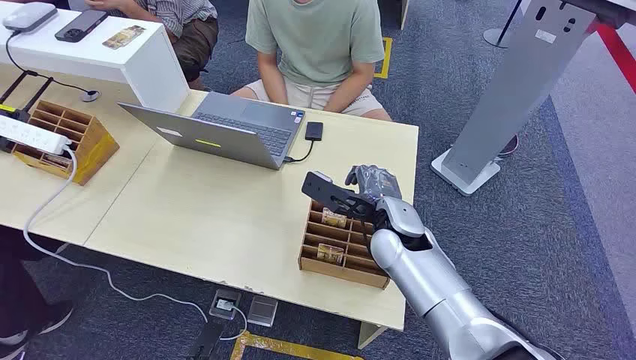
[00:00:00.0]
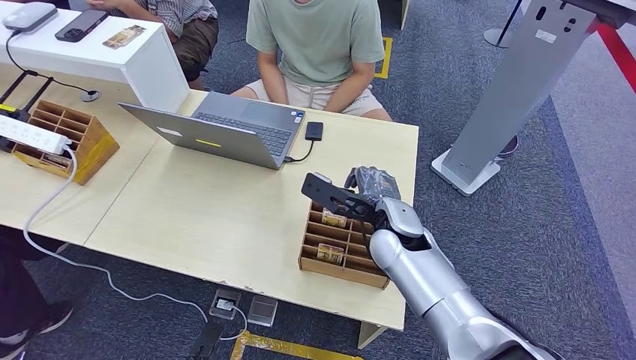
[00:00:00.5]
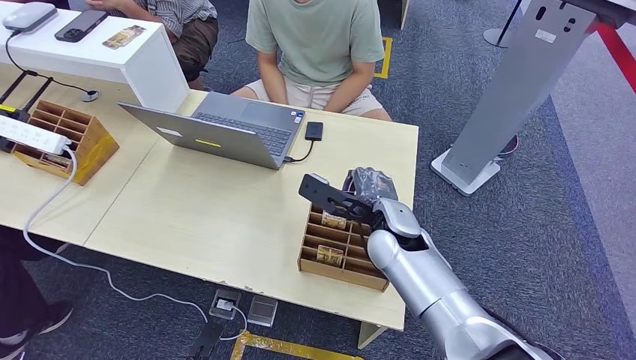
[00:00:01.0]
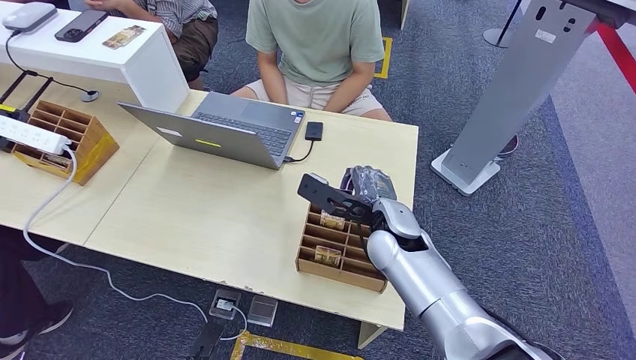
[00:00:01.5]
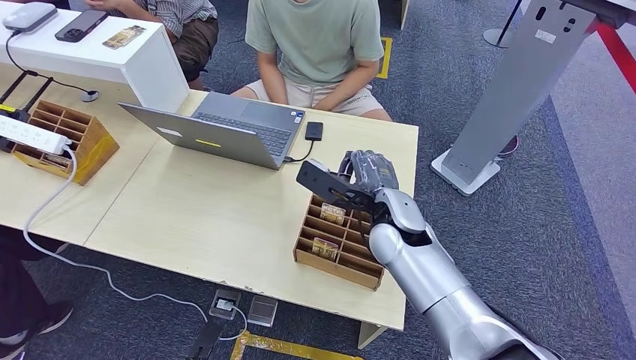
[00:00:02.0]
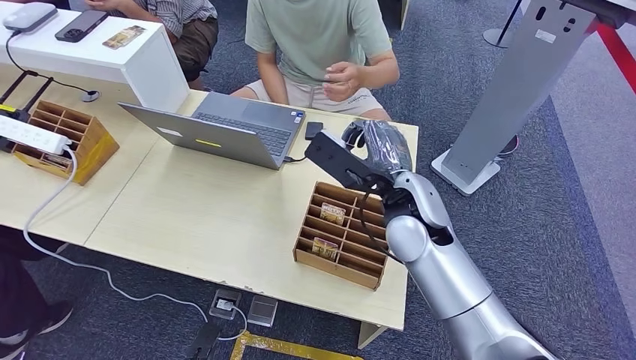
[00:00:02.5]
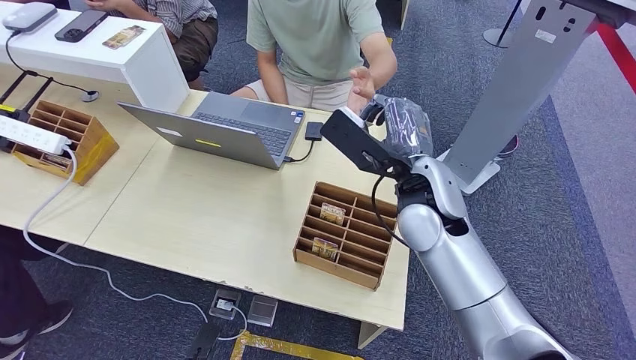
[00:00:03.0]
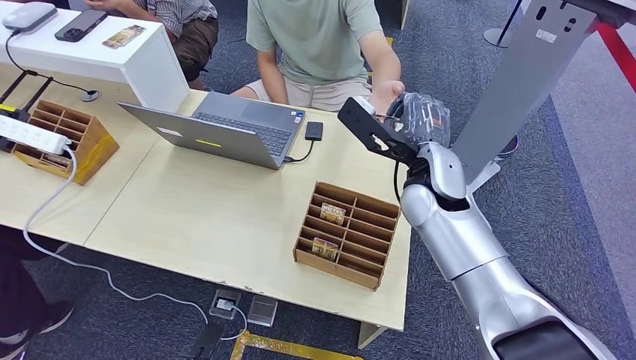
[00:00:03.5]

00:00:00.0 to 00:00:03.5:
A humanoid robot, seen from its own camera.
Task of the whole recording: Pick up the card and hand it over to the target person.
Step, 00:00:00.0 to 00:00:02.0: Pick up the key card from the card box.
00:00:02.0 to 00:00:03.5: The hands stay close to where they were, moving slightly.
